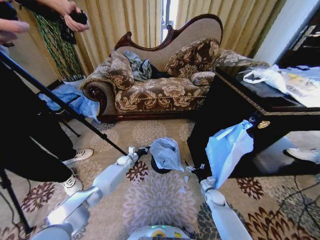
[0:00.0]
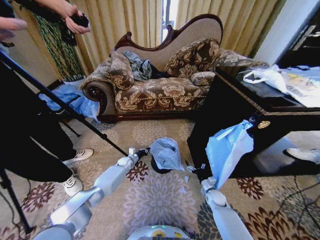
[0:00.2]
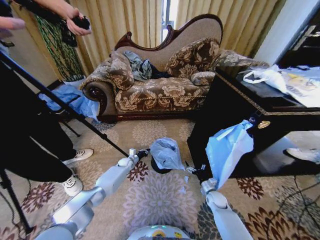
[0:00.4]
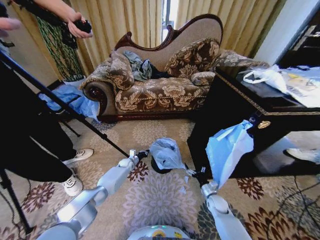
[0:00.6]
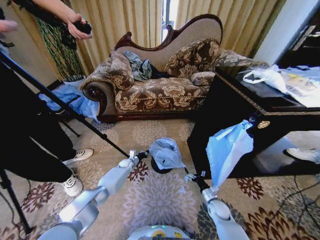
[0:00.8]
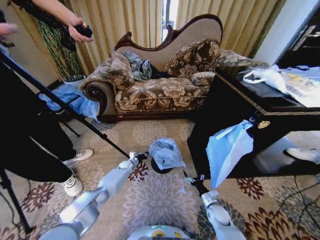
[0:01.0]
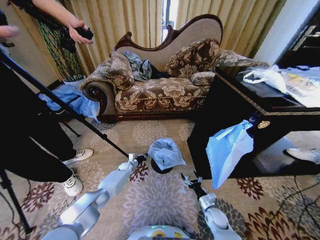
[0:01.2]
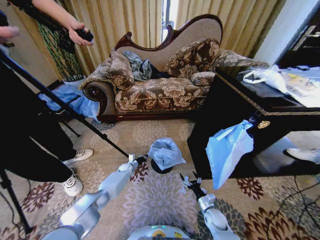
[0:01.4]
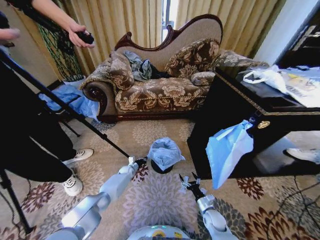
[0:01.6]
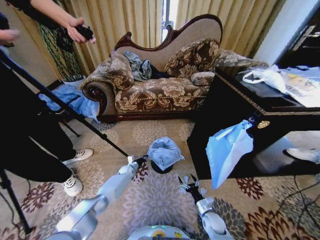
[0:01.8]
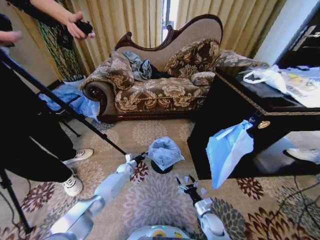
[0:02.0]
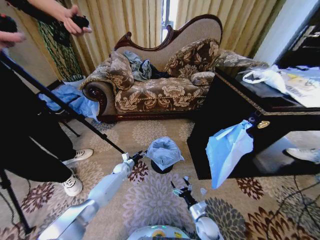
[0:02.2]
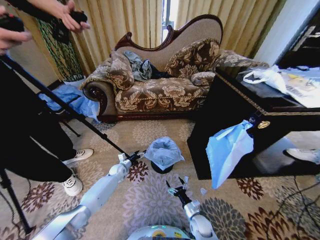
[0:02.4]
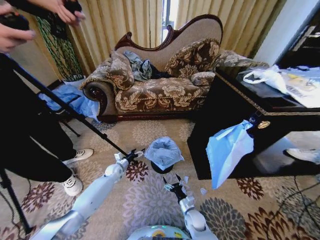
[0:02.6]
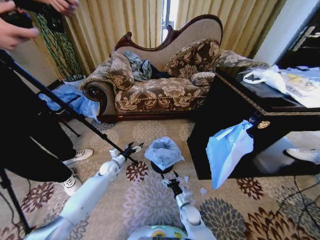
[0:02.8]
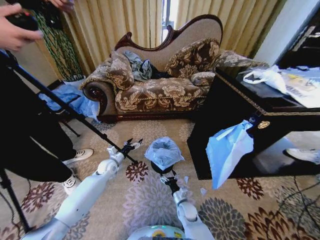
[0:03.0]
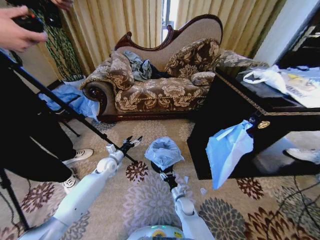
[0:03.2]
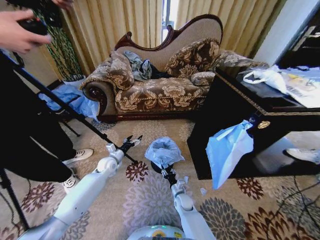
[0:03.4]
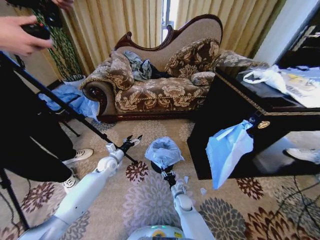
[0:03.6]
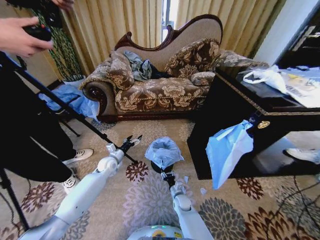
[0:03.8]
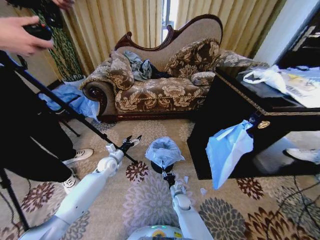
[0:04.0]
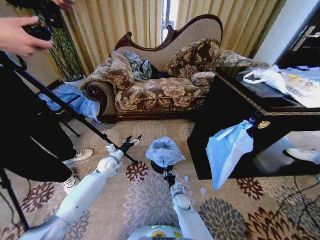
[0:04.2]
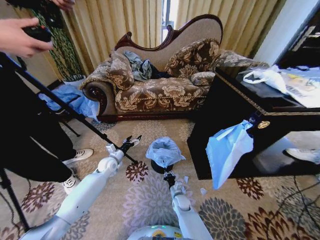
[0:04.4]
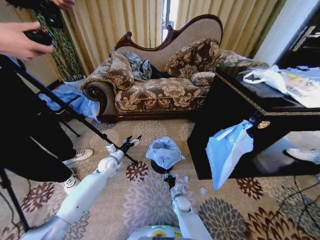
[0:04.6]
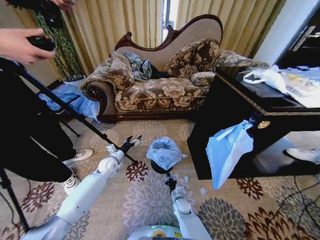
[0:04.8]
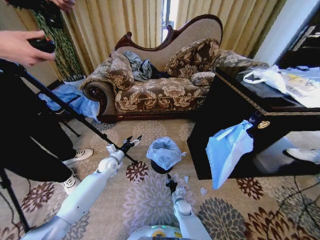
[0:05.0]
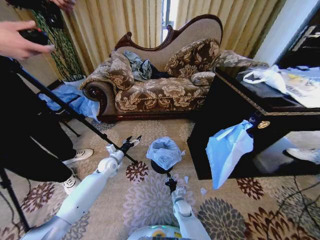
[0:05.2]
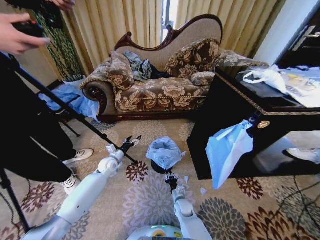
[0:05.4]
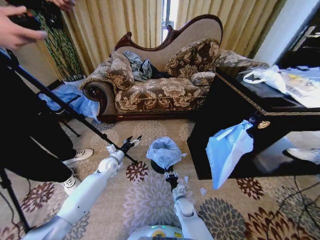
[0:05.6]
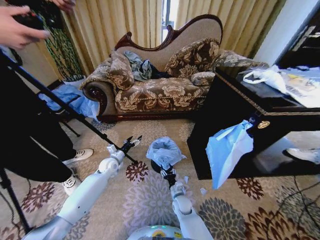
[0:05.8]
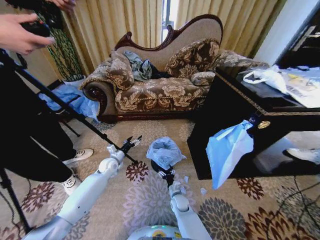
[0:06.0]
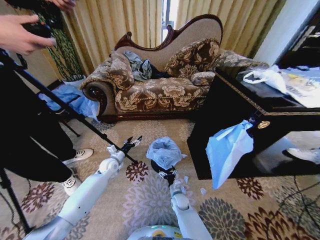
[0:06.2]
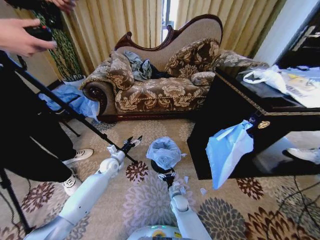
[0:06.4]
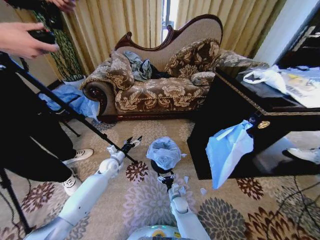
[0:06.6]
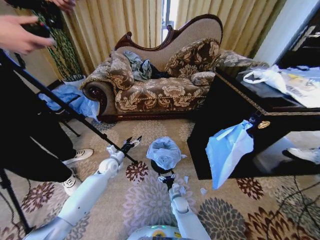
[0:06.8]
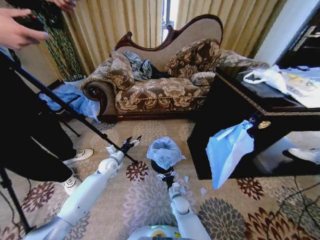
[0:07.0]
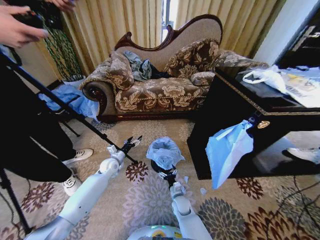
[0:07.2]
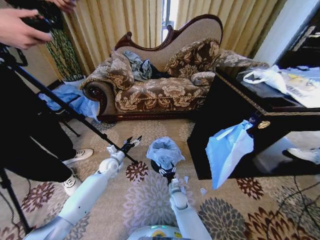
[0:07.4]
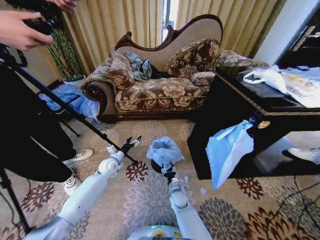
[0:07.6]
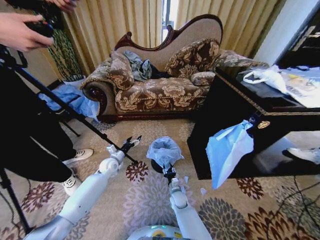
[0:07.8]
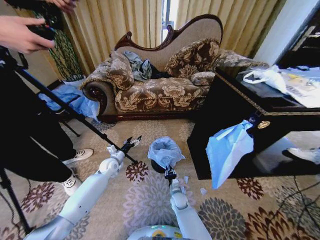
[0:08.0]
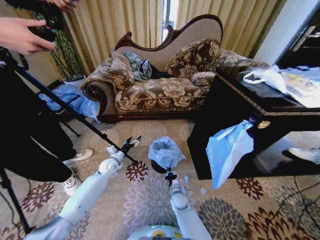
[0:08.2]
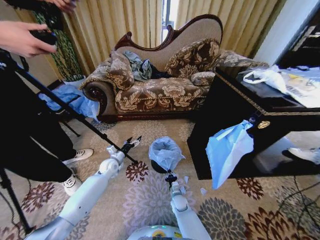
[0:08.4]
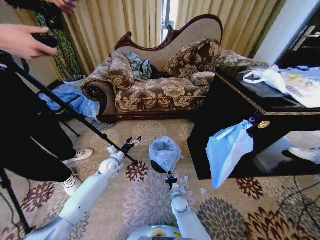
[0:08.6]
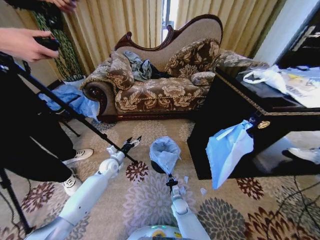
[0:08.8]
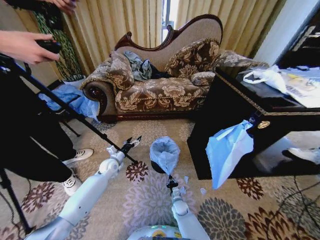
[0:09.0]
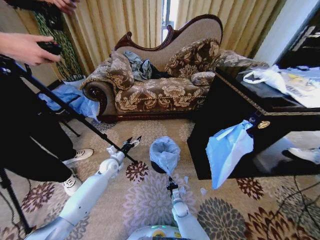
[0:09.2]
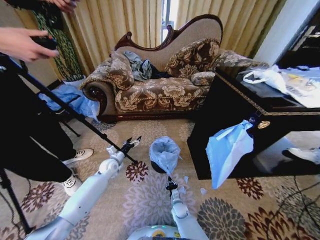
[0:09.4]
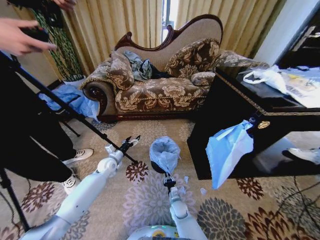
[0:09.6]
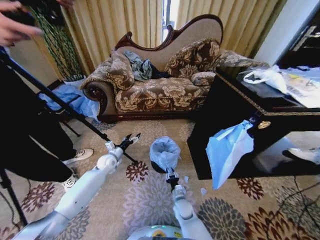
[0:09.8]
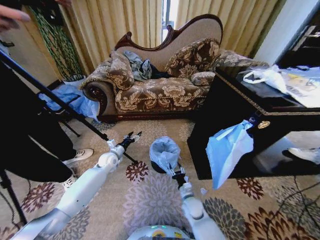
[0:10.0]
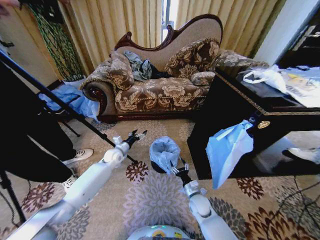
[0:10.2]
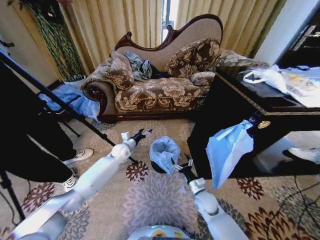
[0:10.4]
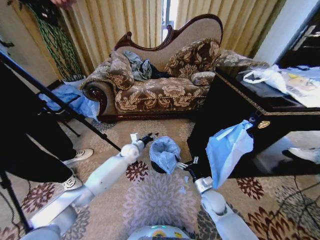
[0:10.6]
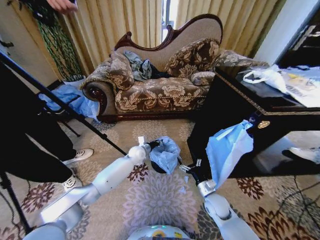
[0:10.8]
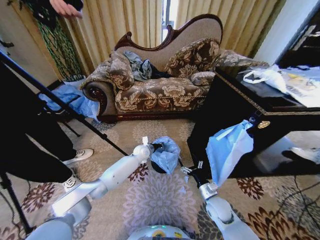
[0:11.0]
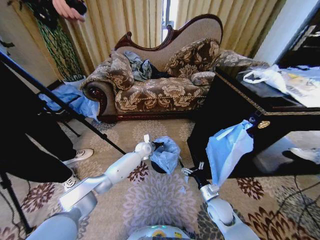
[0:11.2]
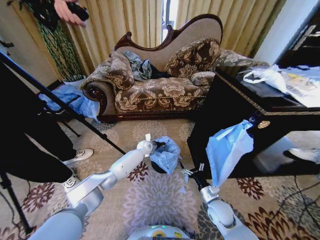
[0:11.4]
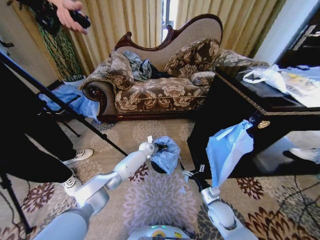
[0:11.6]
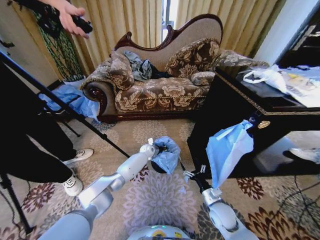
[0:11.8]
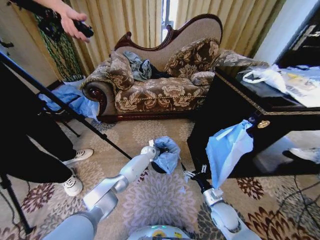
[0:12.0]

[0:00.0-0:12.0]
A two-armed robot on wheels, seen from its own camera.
Task of the whole recording: Place a garbage bag over the trash bin.
0:00.0 to 0:01.6: The right gripper heads backward, covering about 10 cm, while the left gripper moves downward, some 10 cm.
0:01.6 to 0:03.0: The right gripper moves to the left, roughly 15 cm; the left gripper heads upward, covering roughly 20 cm, and opens.
0:03.0 to 0:04.4: The right gripper closes up.
0:04.4 to 0:06.0: The right gripper opens its fingers.
0:06.0 to 0:07.6: There are only small adjustments of the grippers.
0:07.6 to 0:09.0: The right gripper moves downward, approximately 5 cm, and closes its fingers.
0:09.0 to 0:10.4: The right gripper goes roughly 20 cm upward and to the right, and opens its fingers. The left gripper is displaced forward, upward and to the right by about 10 cm.
0:10.4 to 0:12.0: The left gripper goes about 20 cm to the right, downward and forward, and closes. Meanwhile the right gripper is displaced to the right and backward by about 10 cm.

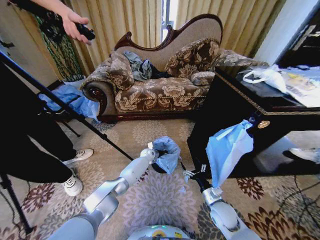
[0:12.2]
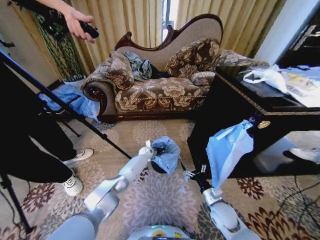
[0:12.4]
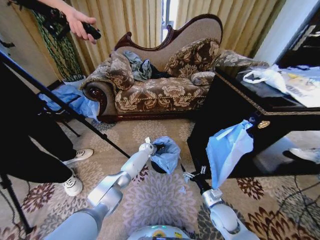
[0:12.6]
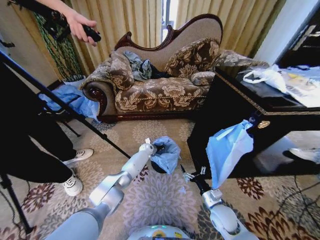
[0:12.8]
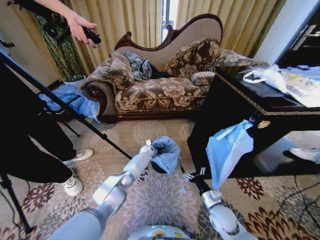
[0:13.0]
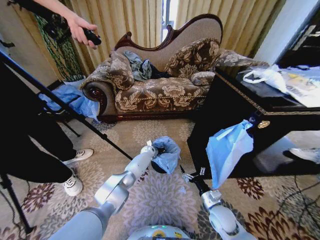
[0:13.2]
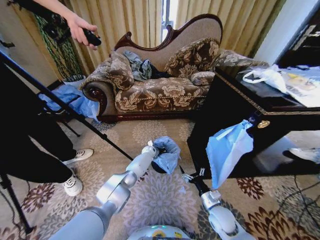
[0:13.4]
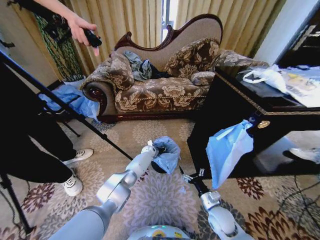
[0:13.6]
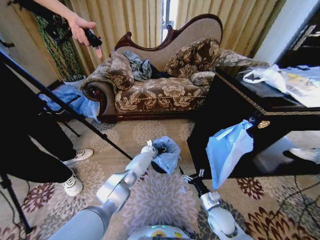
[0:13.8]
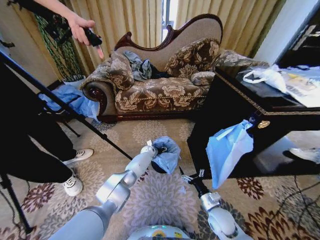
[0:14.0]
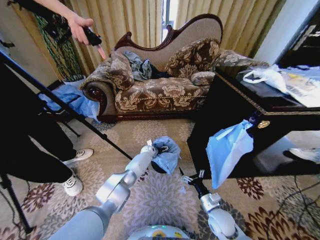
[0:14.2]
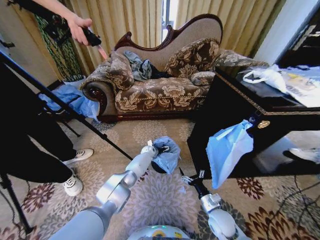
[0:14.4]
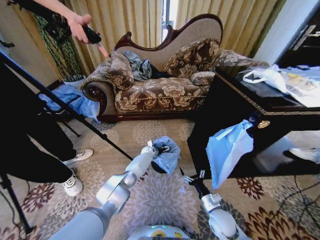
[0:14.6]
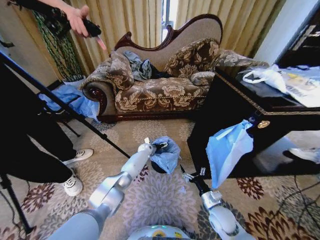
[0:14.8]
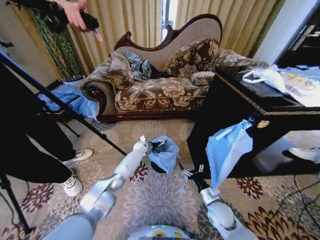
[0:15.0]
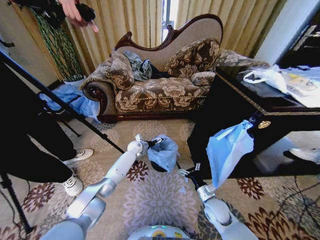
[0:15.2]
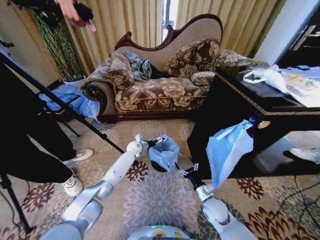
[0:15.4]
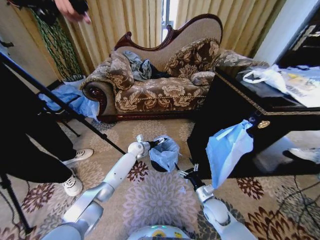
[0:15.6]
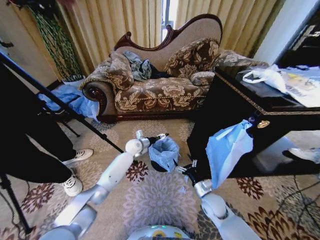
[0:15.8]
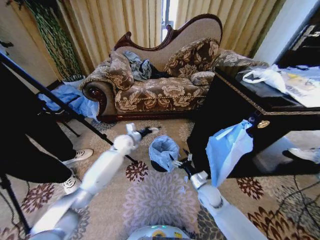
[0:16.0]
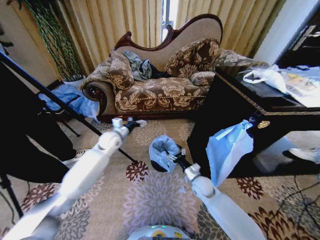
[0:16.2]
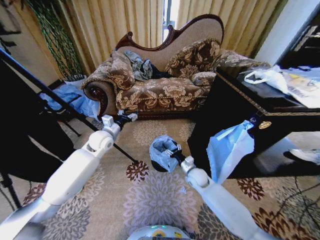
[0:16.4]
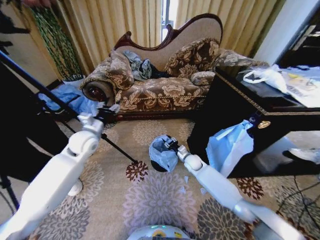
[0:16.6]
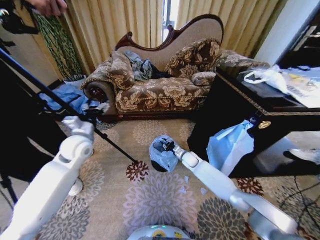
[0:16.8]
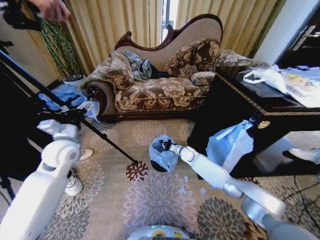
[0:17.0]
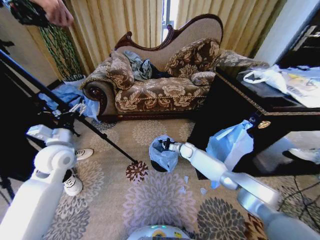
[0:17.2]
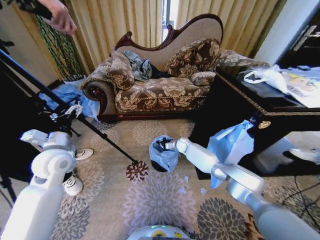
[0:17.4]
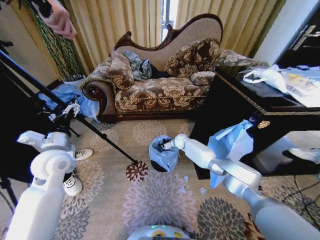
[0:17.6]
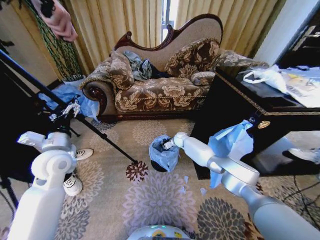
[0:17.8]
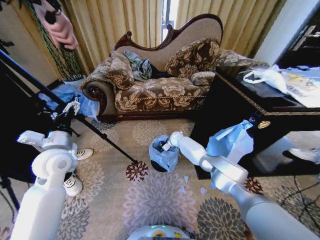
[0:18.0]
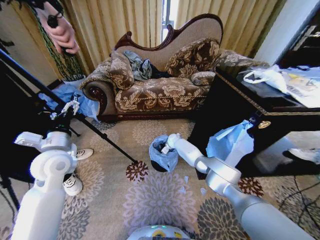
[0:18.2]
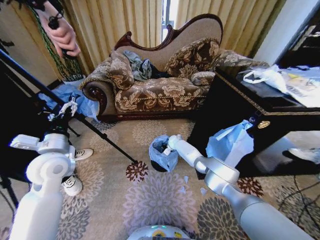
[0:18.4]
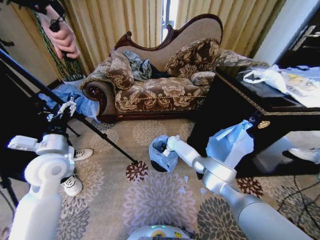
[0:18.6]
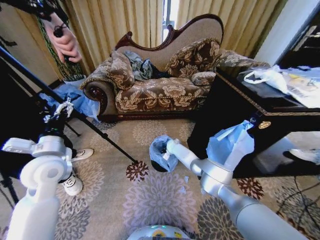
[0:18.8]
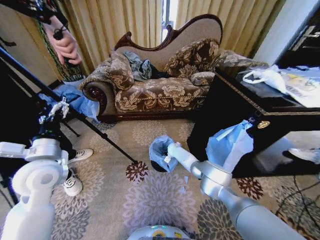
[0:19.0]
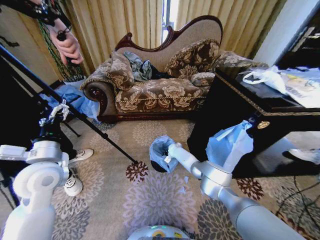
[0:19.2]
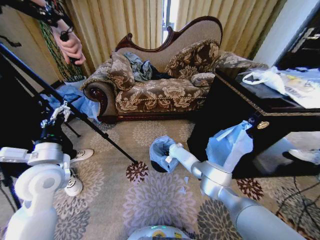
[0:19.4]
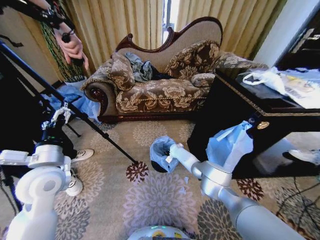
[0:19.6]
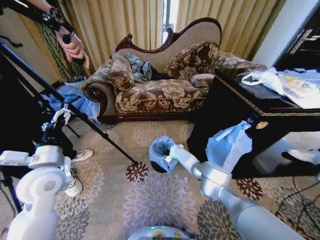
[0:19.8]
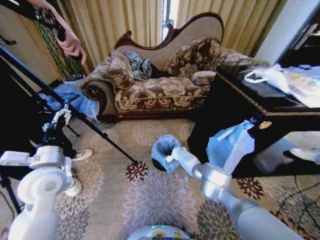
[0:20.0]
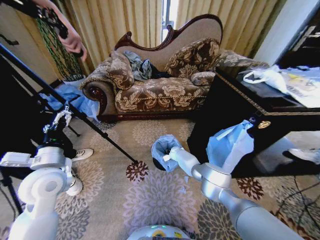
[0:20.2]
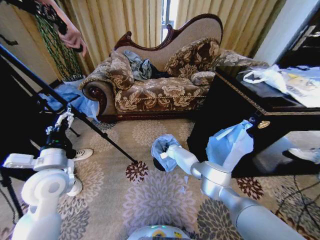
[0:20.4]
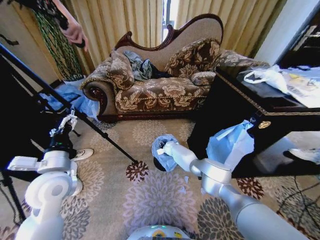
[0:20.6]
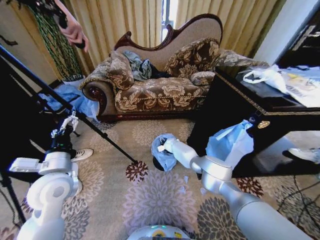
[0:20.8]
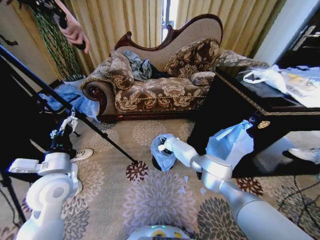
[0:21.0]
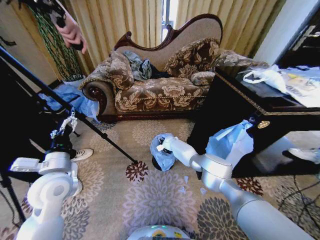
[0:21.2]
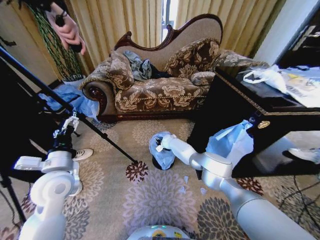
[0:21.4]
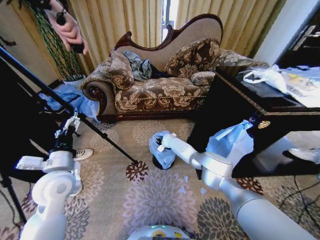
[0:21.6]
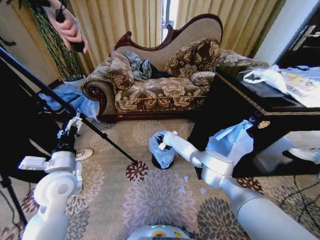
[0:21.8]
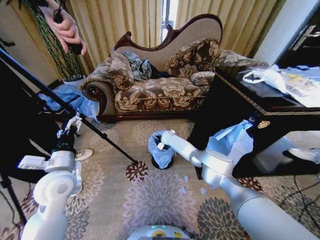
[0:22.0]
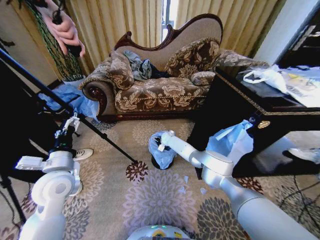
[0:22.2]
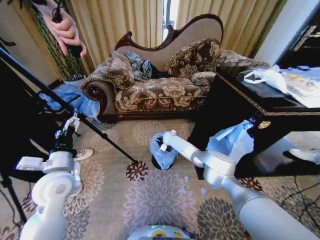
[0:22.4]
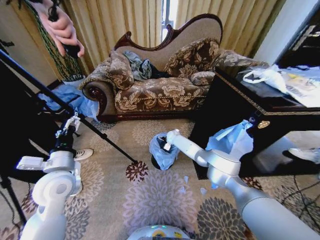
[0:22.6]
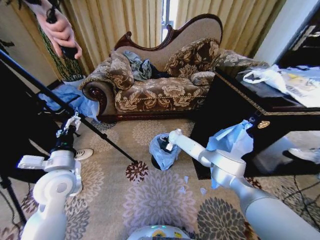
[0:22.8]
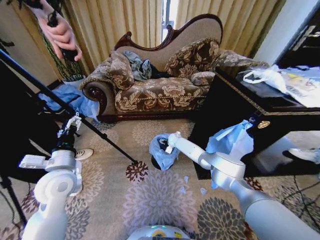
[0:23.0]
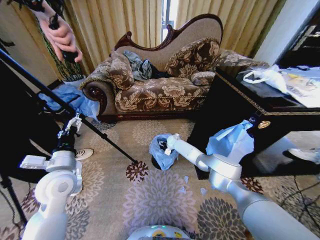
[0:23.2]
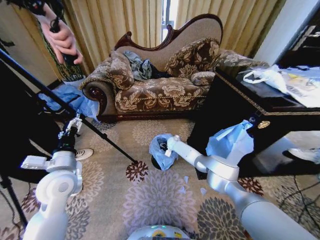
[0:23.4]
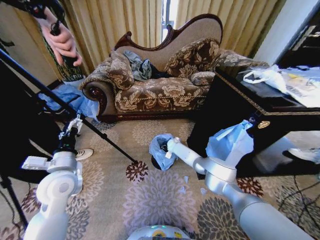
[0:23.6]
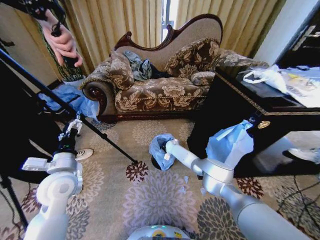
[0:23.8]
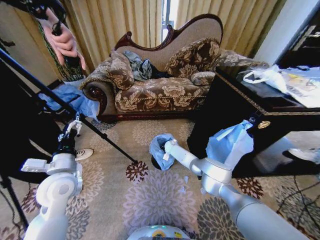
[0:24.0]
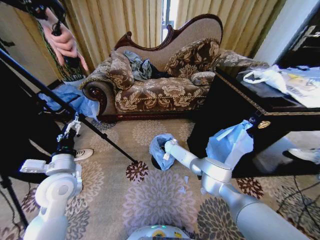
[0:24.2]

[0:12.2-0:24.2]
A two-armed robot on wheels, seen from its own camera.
Task of the whole recording: Place a garbage bag over the trash bin.
0:12.2 to 0:13.8: The left gripper opens.
0:13.8 to 0:15.2: The left gripper travels to the left and upward by about 10 cm, and opens up.
0:15.2 to 0:16.6: The right gripper goes about 20 cm forward, and closes. Meanwhile the left gripper travels upward, backward and to the left by about 30 cm, and closes its fingers.
0:16.6 to 0:18.2: The right gripper goes about 20 cm forward and to the left, and closes up, while the left gripper is displaced backward by approximately 10 cm, and opens up.
0:18.2 to 0:19.8: The right gripper shifts about 10 cm downward. The left gripper travels backward by roughly 5 cm.
0:19.8 to 0:21.2: The right gripper travels upward and to the left by some 10 cm, and opens.
0:22.6 to 0:24.2: The right gripper shifts approximately 5 cm downward.
